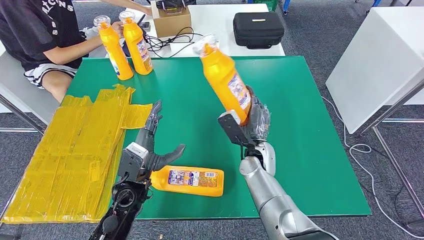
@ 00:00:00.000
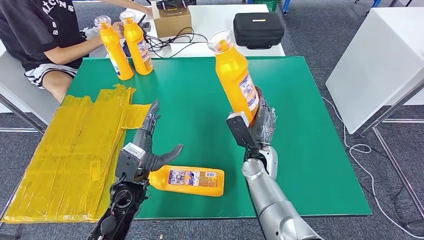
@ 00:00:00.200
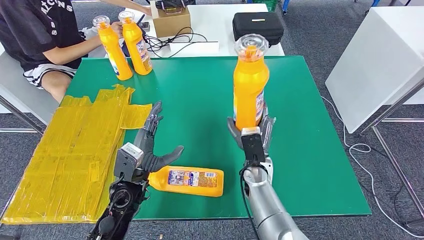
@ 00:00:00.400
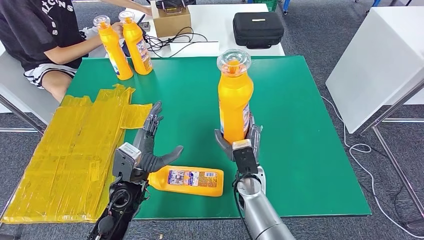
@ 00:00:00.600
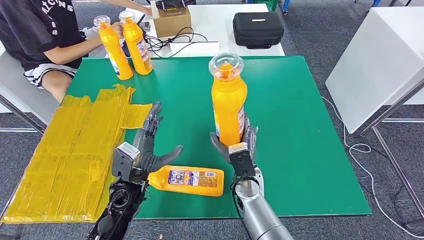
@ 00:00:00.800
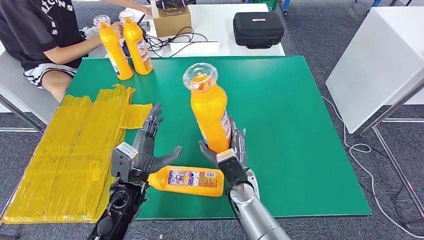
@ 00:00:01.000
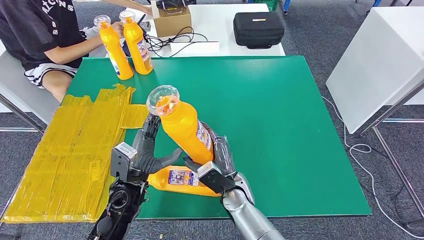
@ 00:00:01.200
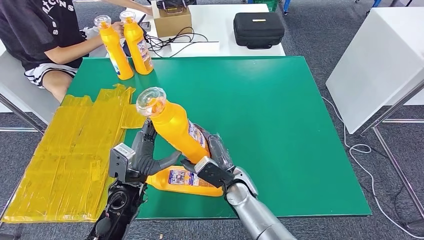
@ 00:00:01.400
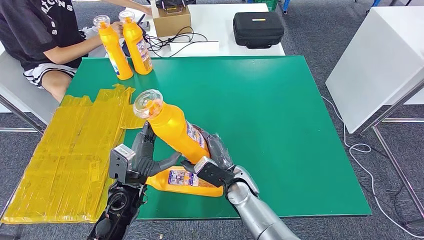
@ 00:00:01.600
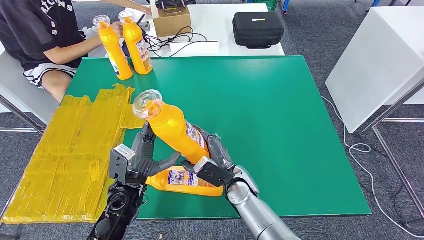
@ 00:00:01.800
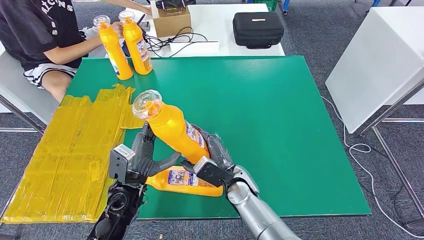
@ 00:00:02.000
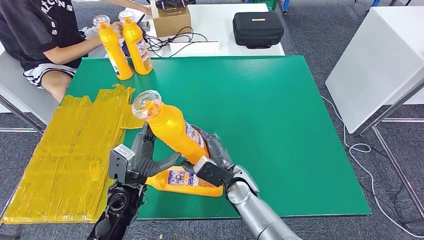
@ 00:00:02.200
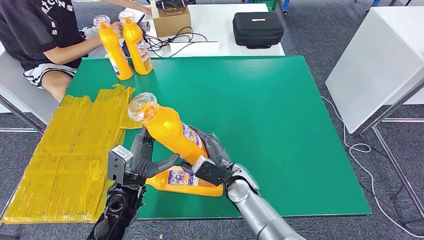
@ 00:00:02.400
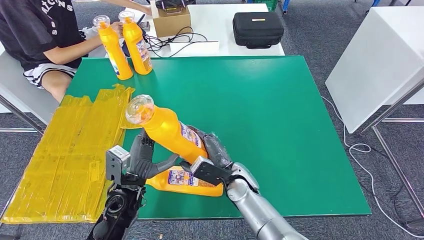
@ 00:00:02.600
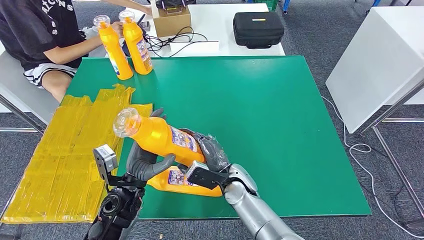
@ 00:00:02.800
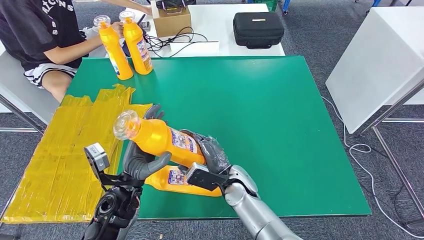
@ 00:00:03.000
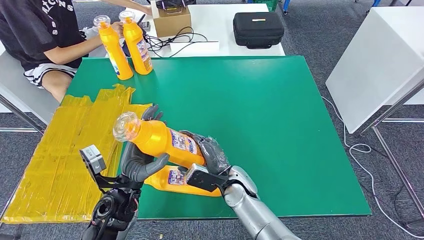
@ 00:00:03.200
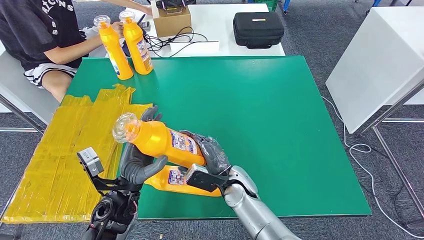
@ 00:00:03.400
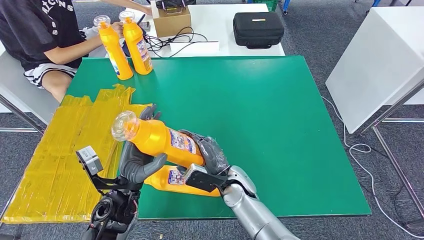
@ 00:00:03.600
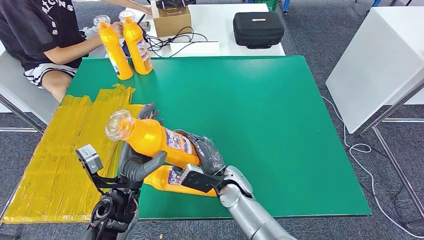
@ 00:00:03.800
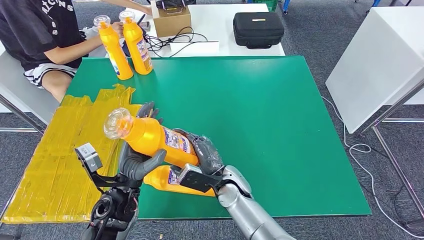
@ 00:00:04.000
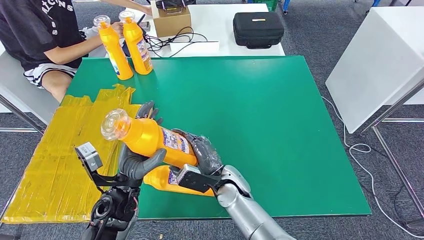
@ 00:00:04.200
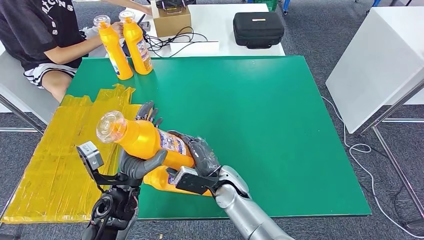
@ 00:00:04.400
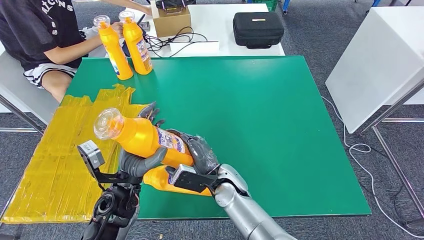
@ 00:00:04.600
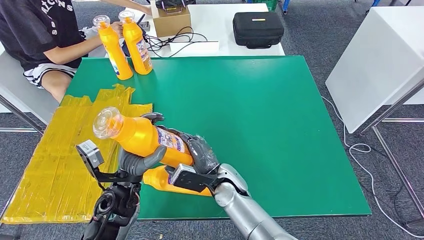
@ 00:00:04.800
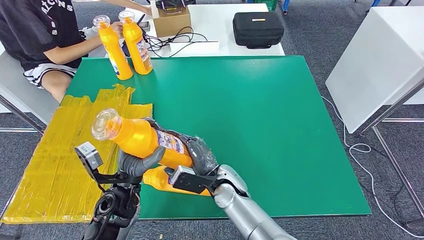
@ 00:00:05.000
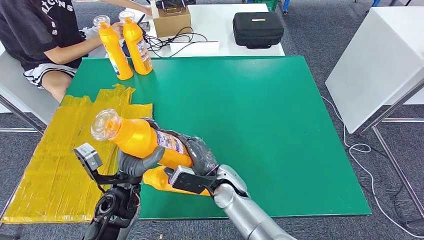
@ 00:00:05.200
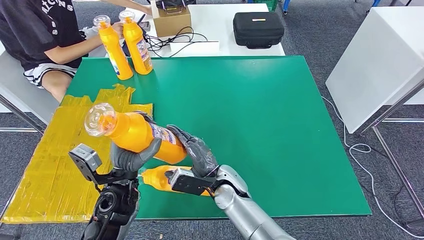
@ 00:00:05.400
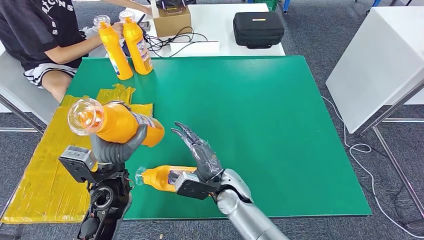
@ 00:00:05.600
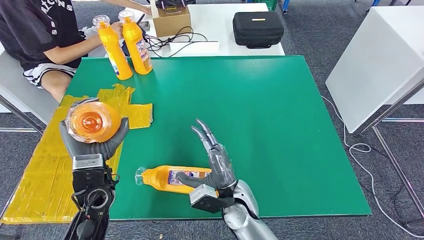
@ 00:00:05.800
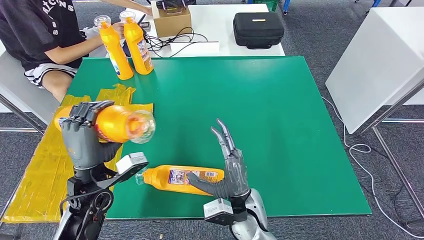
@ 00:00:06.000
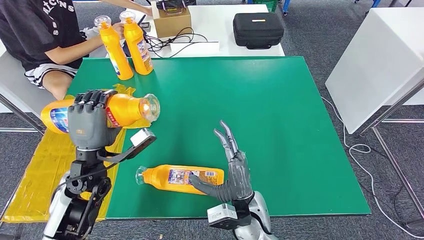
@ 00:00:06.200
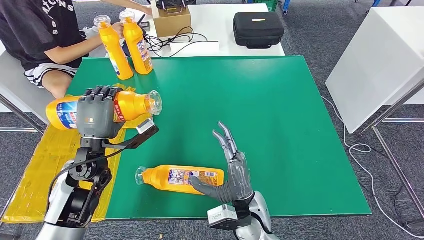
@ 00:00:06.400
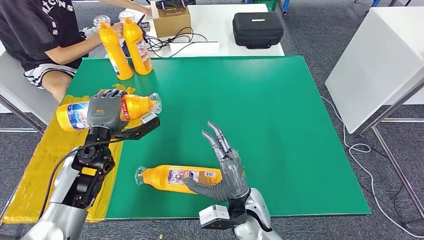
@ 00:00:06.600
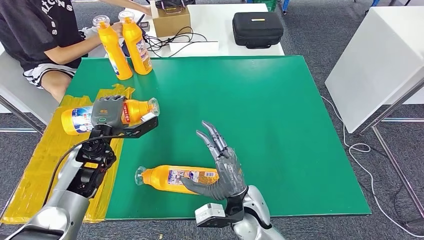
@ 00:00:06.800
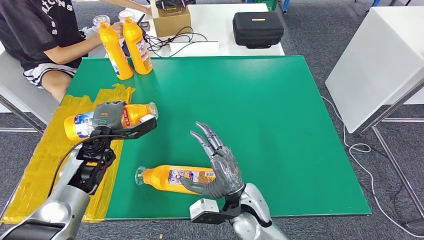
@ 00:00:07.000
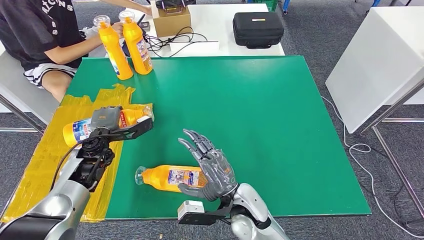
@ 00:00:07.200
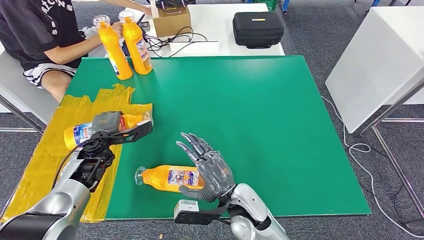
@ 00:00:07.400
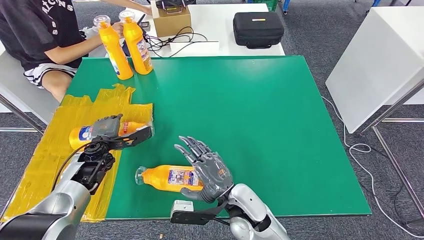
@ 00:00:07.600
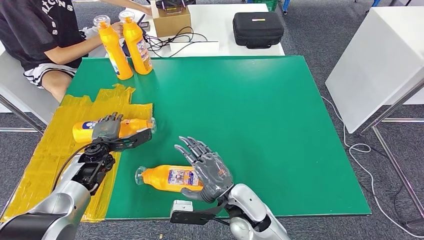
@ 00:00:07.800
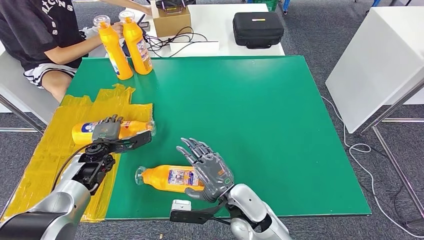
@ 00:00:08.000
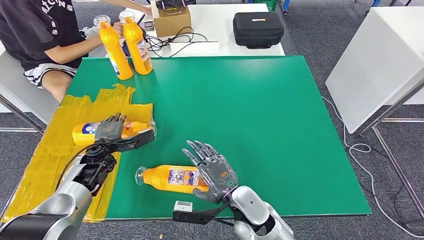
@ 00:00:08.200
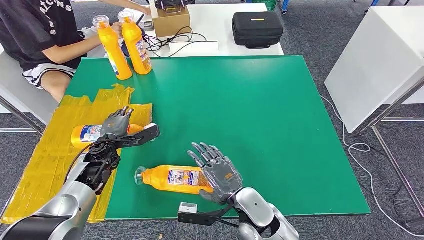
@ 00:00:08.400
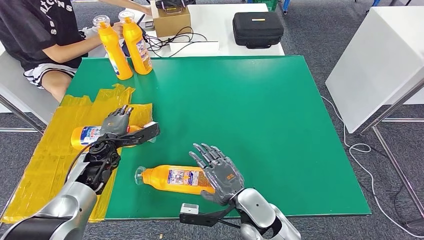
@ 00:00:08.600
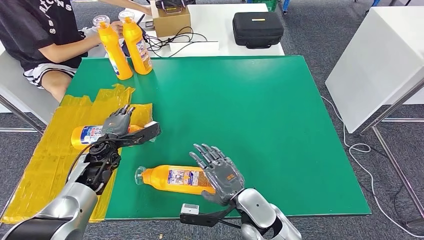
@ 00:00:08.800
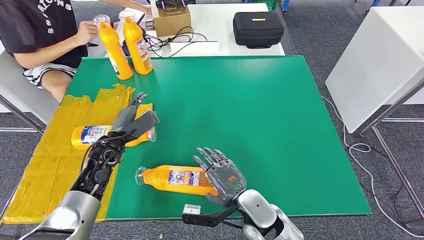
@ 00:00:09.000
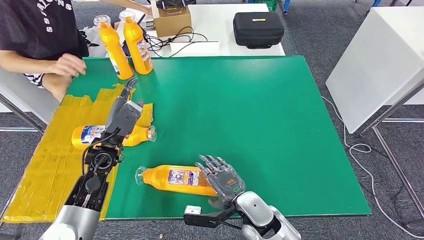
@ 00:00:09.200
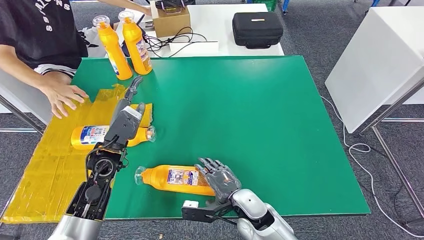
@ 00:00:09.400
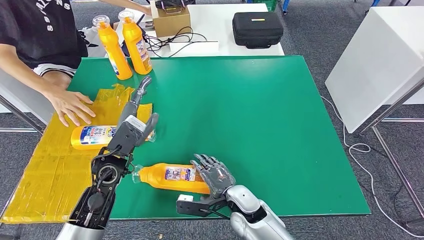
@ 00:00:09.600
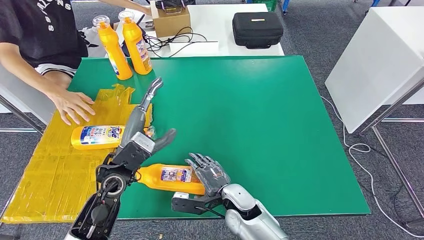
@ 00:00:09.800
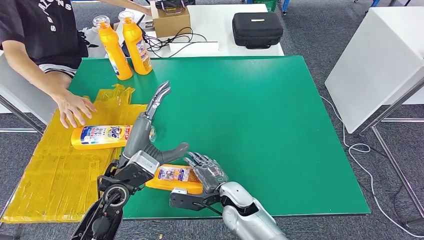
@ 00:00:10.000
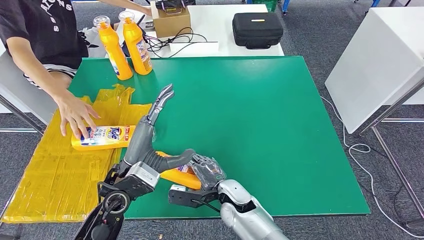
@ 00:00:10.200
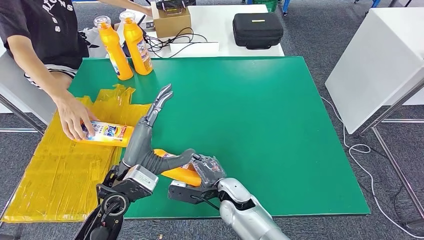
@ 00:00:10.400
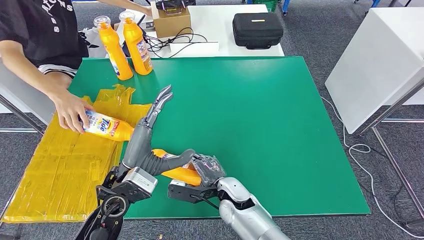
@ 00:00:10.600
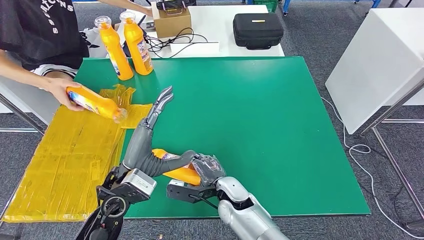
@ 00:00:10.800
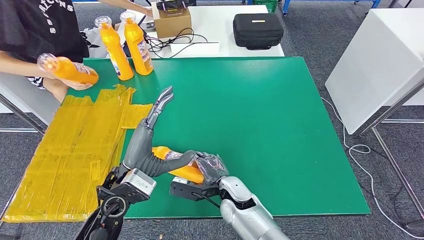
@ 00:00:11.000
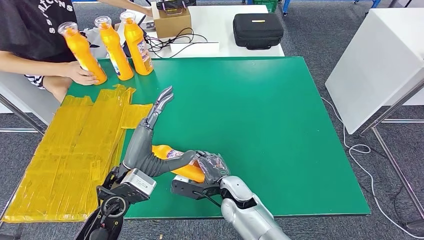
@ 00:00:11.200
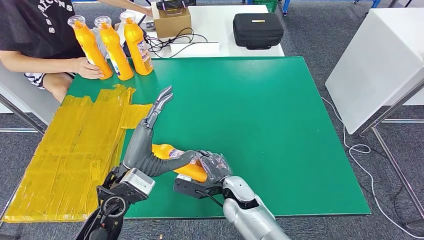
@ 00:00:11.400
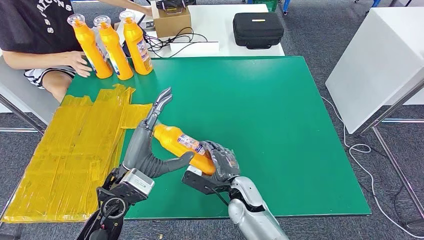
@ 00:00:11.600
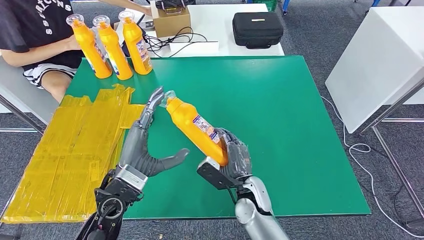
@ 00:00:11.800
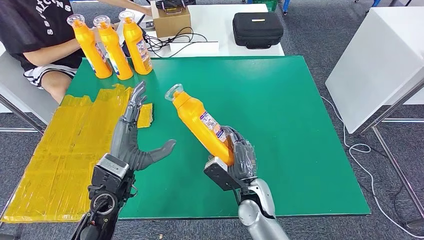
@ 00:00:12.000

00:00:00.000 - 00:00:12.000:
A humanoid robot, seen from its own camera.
Step, 00:00:00.000 - 00:00:02.200: Pick up the fast-moving consumer goods bottle from the table.
Step, 00:00:02.800 - 00:00:09.400: Flip the fast-moving consumer goods bottle to the front side.
00:00:00.000 - 00:00:01.600: The right hand heads backward and to the left, covering about 10 cm.
00:00:03.000 - 00:00:04.400: The hands make only small movements.
00:00:04.400 - 00:00:06.000: The right hand goes roughly 5 cm backward; the left hand travels to the left by some 5 cm.
00:00:06.000 - 00:00:07.600: The left hand goes some 15 cm forward, downward and to the left.
00:00:07.600 - 00:00:09.000: The left hand changes place by about 5 cm.
00:00:10.400 - 00:00:12.000: The right hand goes approximately 5 cm to the right.

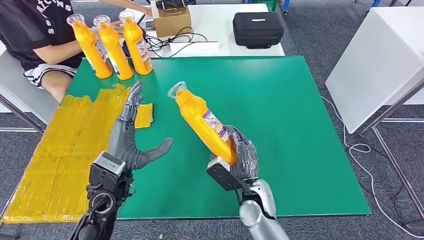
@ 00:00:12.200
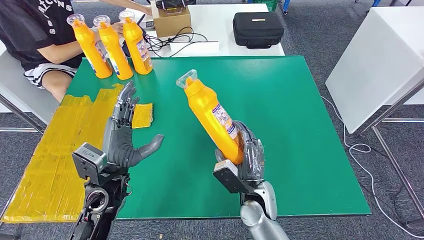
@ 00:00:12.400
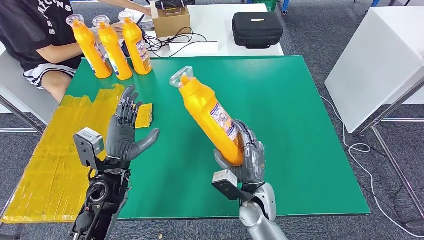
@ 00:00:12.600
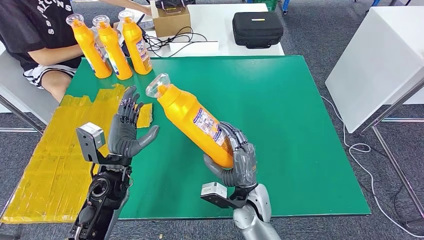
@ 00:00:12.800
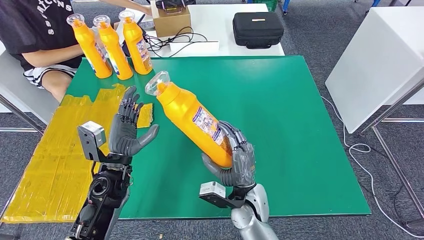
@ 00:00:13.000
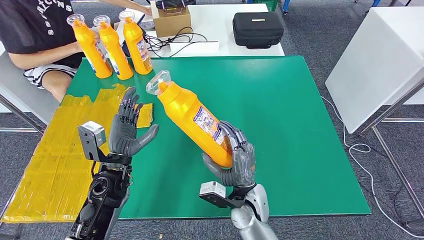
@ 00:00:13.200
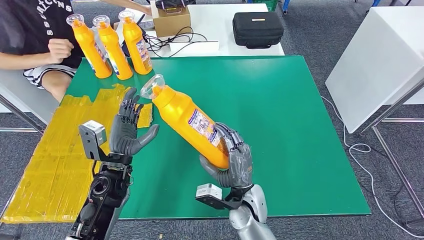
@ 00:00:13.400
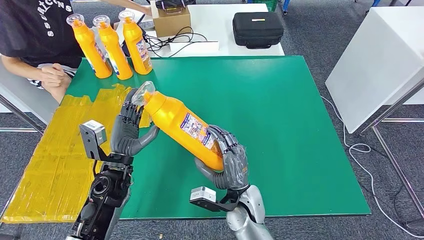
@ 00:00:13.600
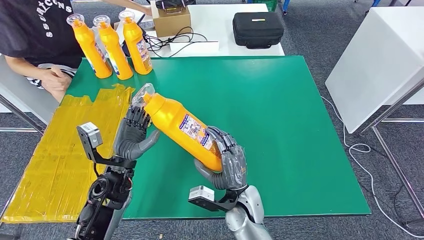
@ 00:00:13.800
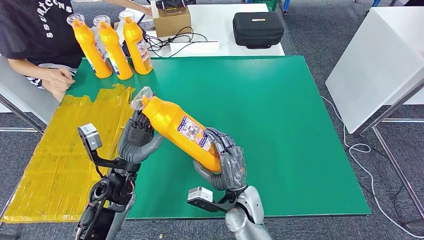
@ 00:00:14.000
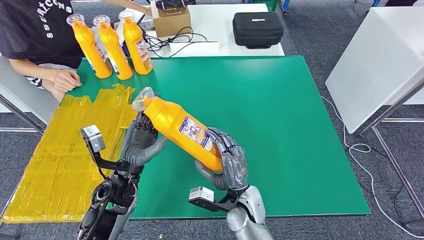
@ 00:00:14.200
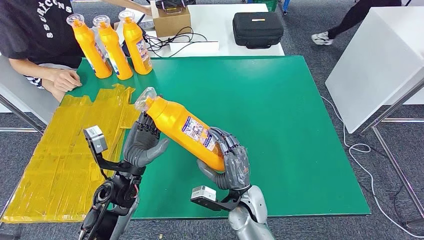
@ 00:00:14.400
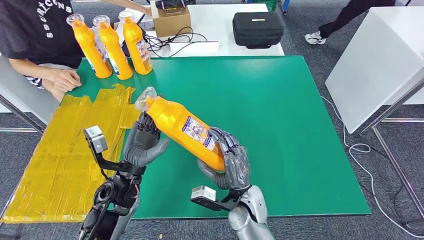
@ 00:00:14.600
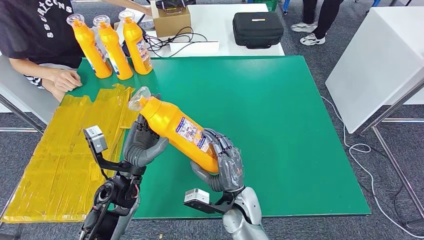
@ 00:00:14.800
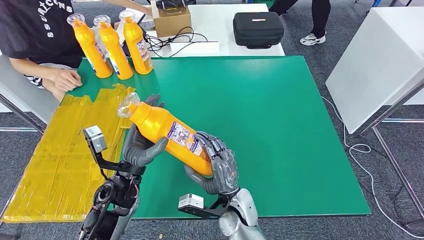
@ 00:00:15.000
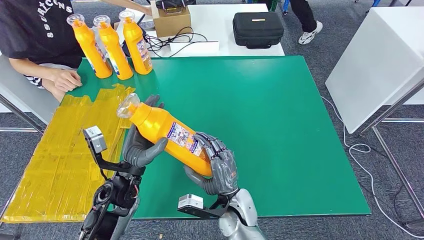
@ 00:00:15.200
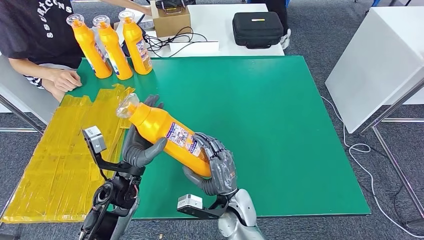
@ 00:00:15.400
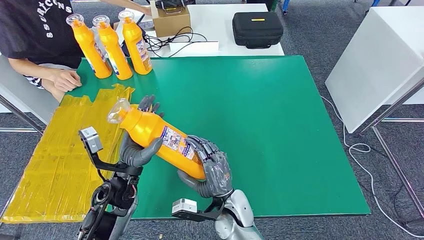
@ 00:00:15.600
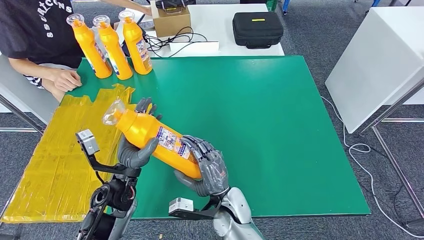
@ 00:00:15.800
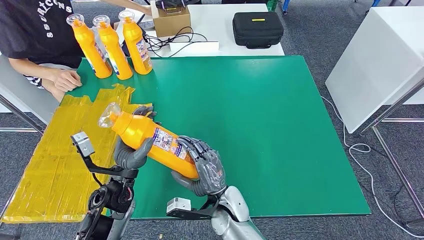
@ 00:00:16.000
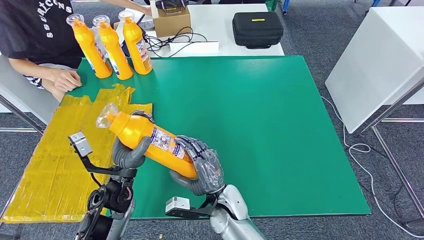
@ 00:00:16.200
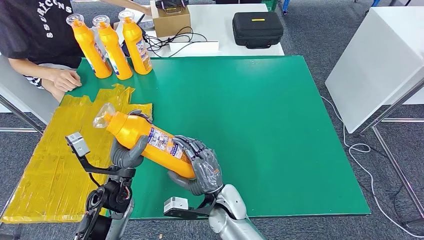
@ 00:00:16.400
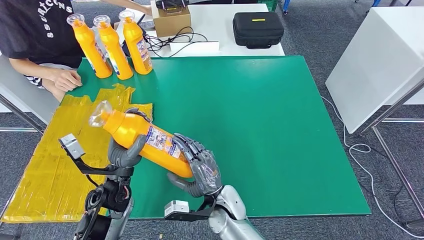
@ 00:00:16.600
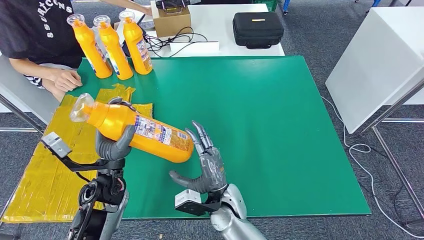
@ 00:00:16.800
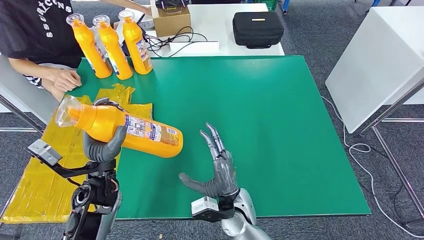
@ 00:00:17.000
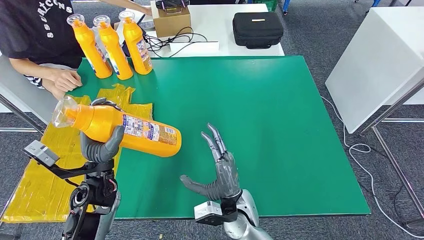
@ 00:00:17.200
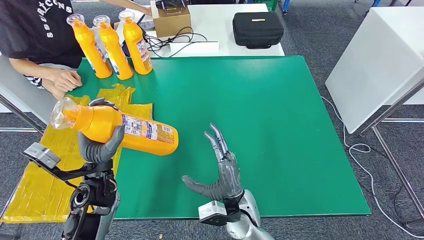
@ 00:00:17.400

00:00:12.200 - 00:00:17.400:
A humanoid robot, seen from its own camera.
00:00:12.200 - 00:00:14.000: The left hand ends up about 5 cm from where it was.
00:00:14.000 - 00:00:15.600: The hands make only small movements.
00:00:15.600 - 00:00:17.400: The left hand moves to the left, some 5 cm.
